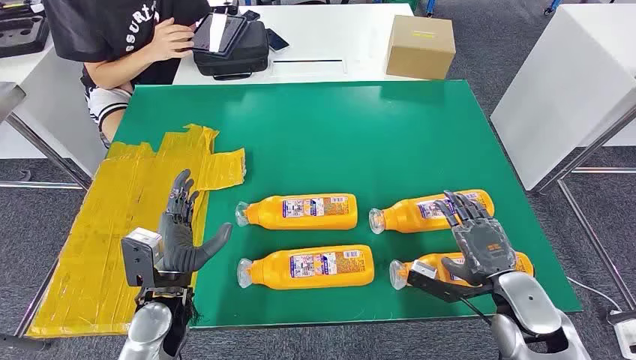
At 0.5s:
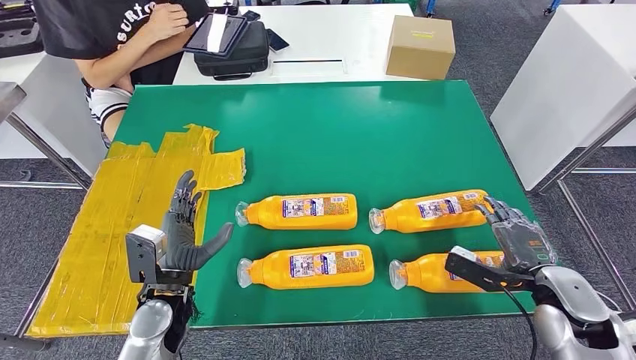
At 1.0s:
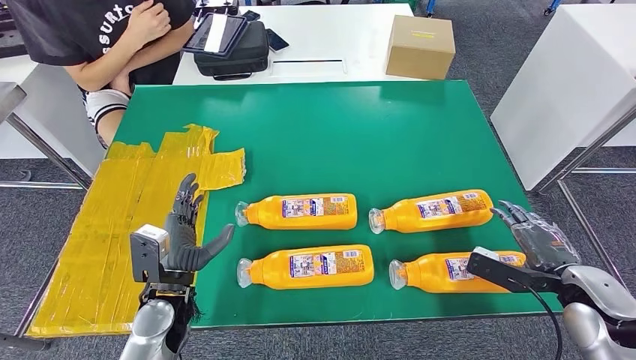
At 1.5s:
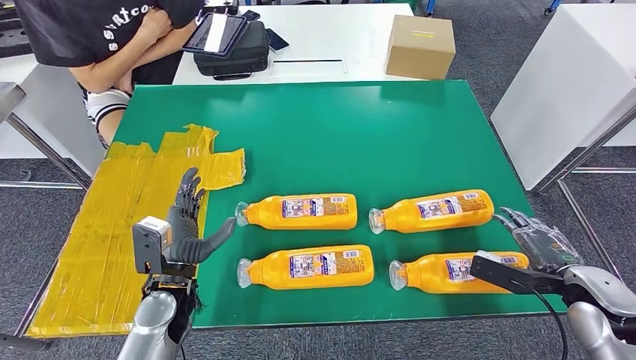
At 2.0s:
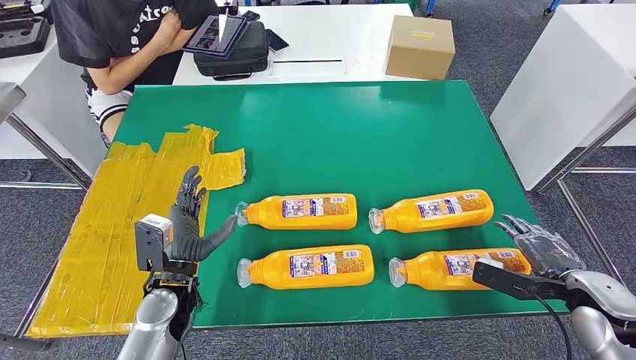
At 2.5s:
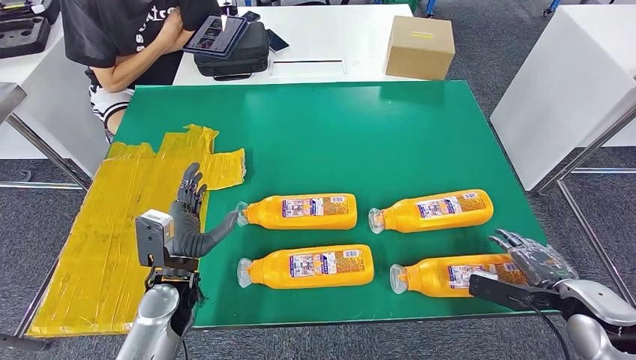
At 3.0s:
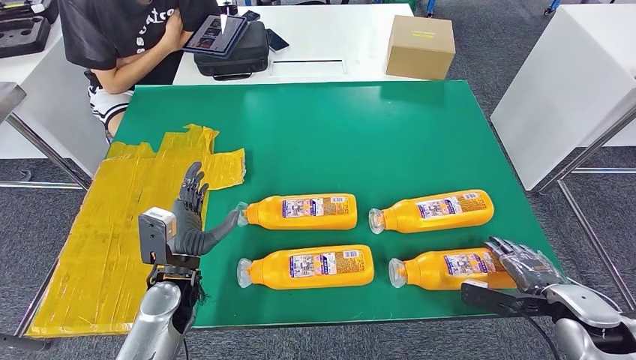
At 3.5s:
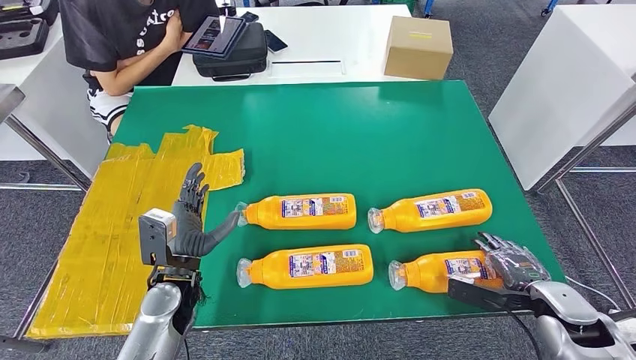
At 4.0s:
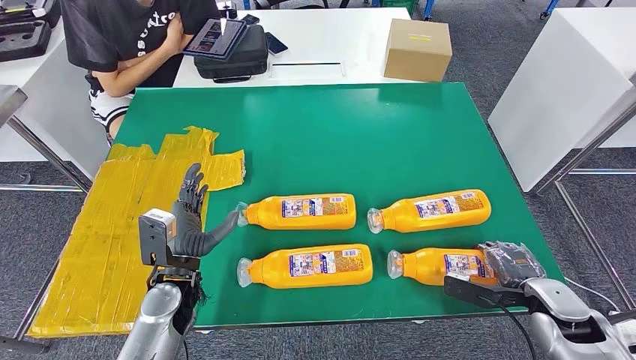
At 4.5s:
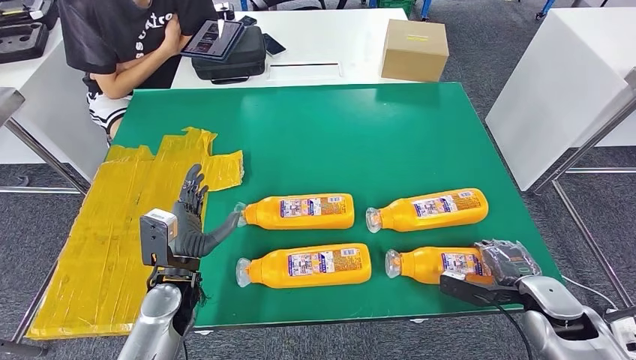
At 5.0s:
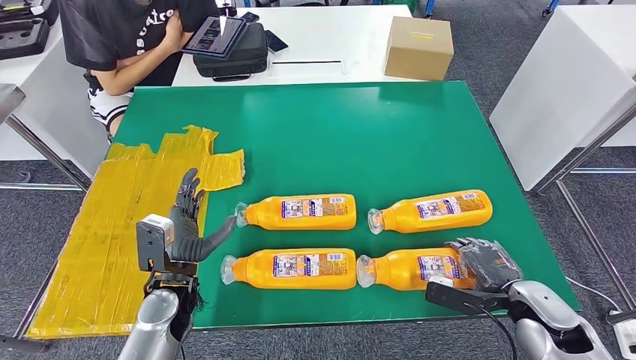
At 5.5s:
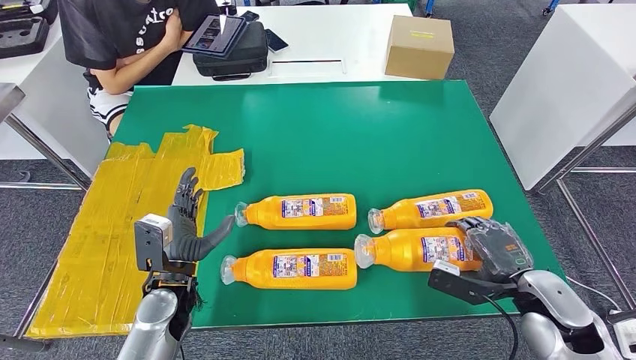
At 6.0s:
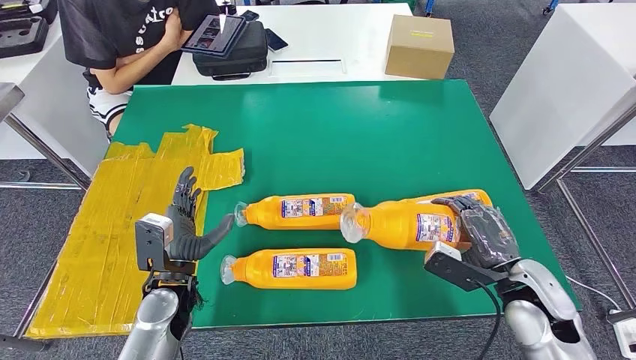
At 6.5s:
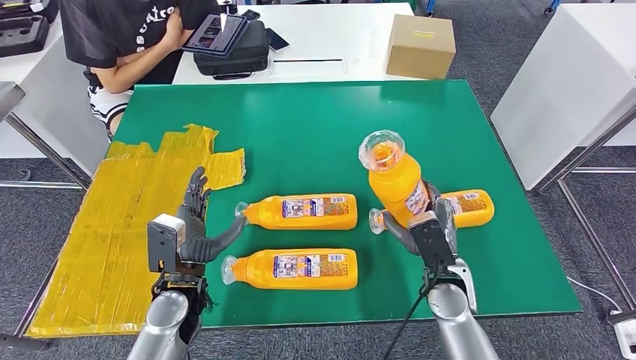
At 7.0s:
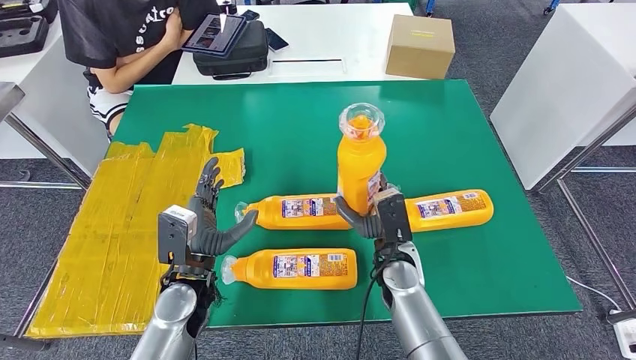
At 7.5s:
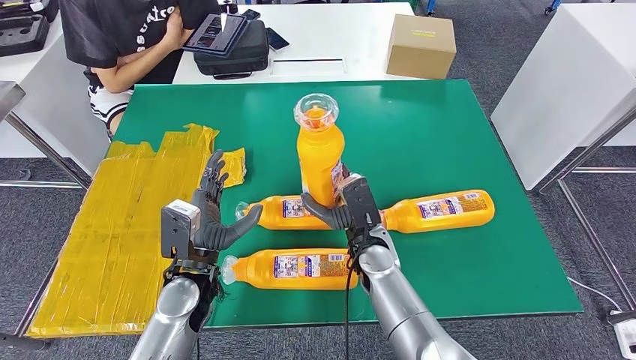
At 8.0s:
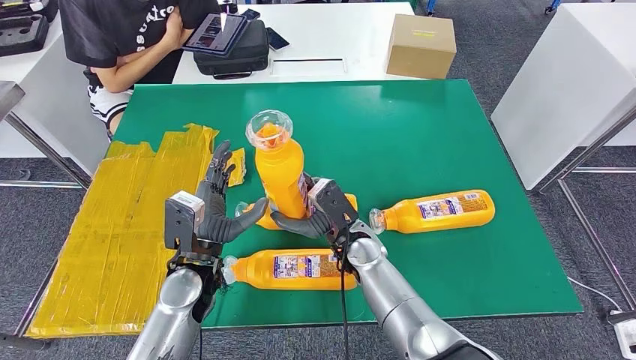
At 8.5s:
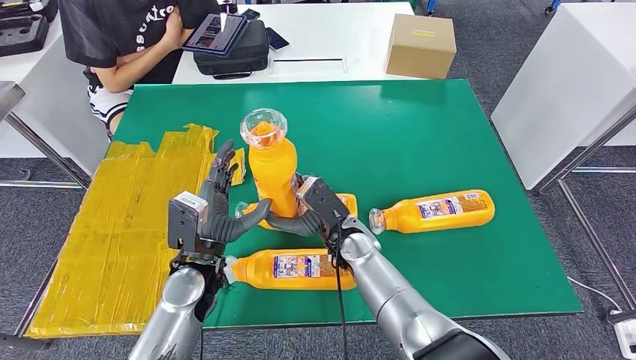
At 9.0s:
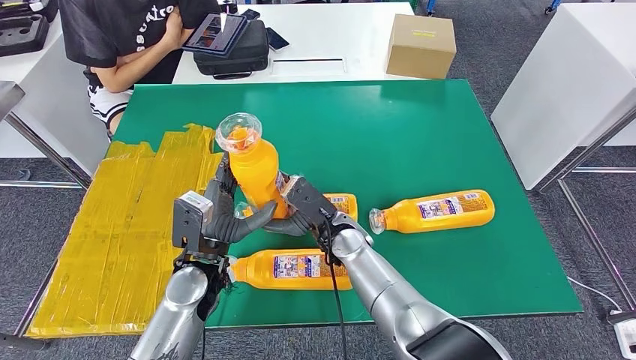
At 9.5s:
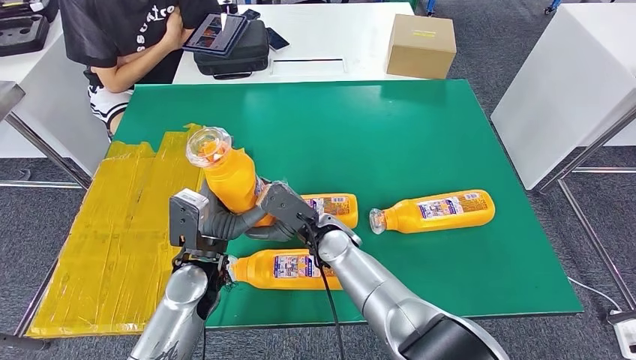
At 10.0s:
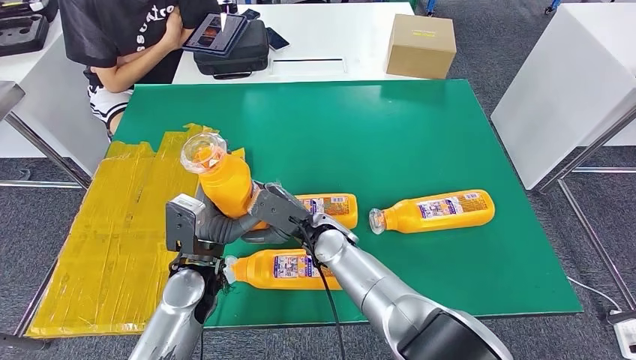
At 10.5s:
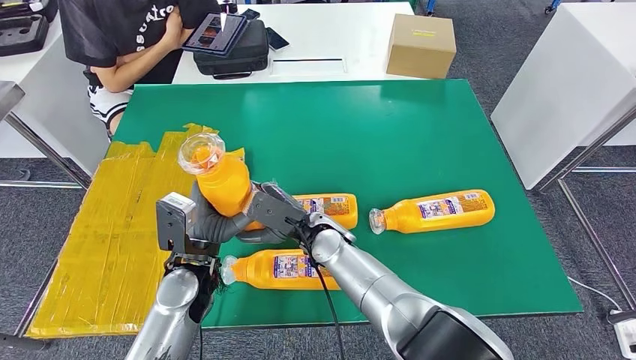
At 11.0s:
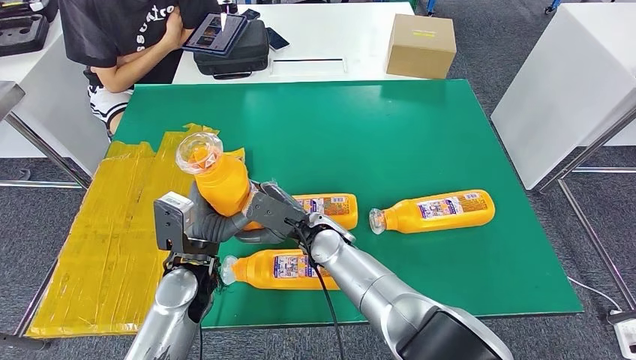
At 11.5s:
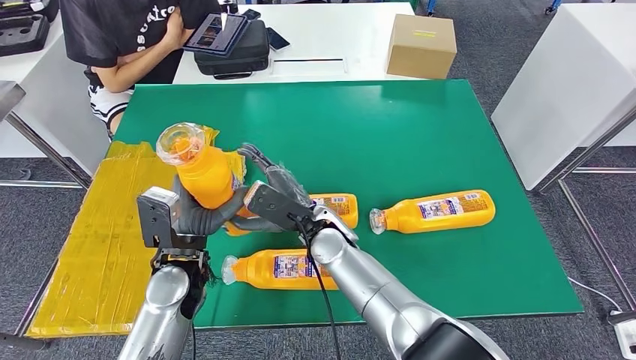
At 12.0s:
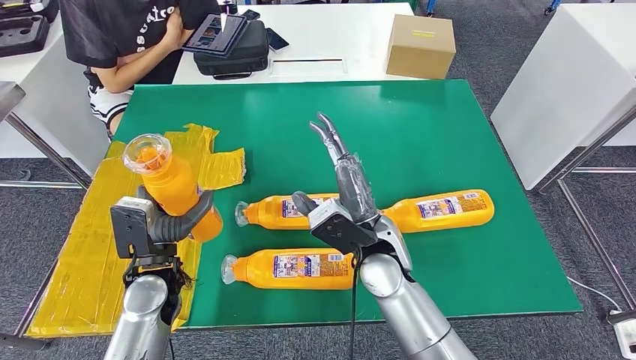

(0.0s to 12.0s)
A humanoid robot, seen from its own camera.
Step, 0.0s - 7.0s: Take the bottle from the table.
2.0s - 4.0s: The right hand moves downward, about 5 cm.
4.0s - 6.0s: The right hand moves to the left and upward, roughly 10 cm.
8.0s - 10.0s: The right hand is displaced to the left by about 5 cm.
10.0s - 12.0s: The right hand is displaced to the right and upward by about 10 cm; the left hand moves to the left, about 5 cm.

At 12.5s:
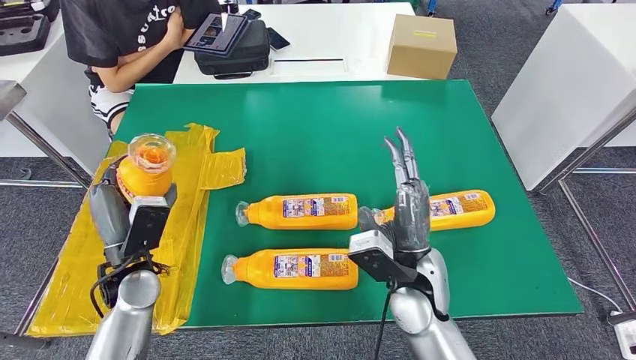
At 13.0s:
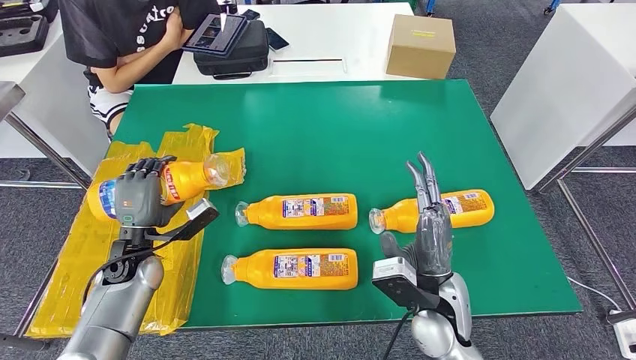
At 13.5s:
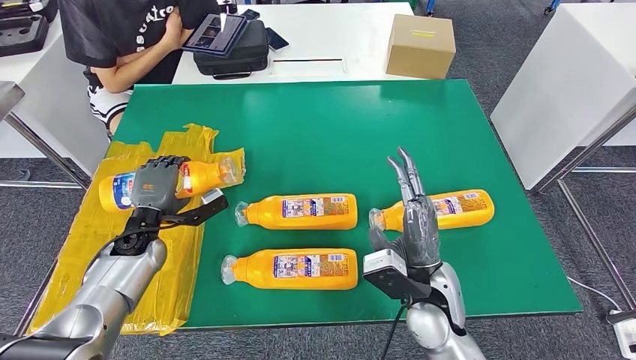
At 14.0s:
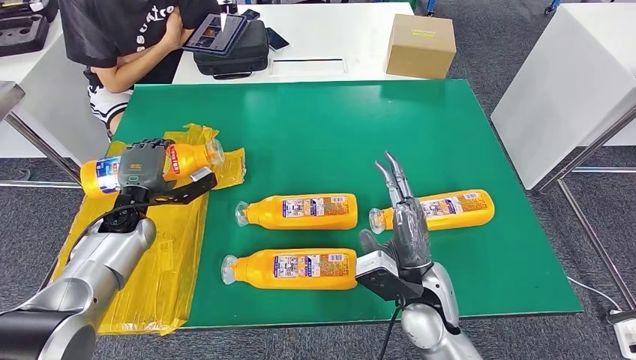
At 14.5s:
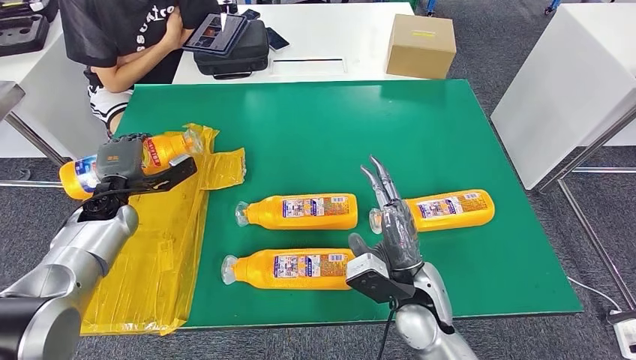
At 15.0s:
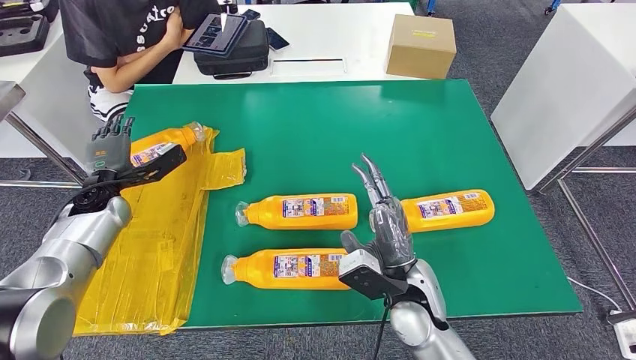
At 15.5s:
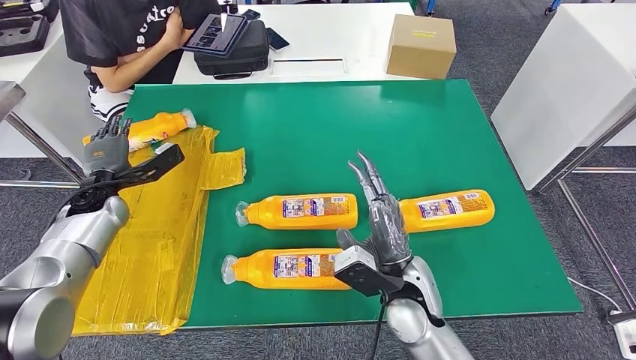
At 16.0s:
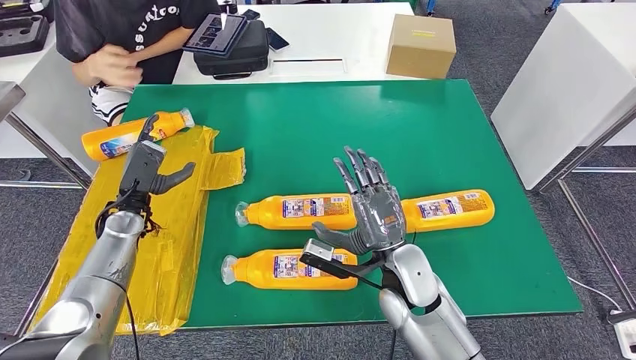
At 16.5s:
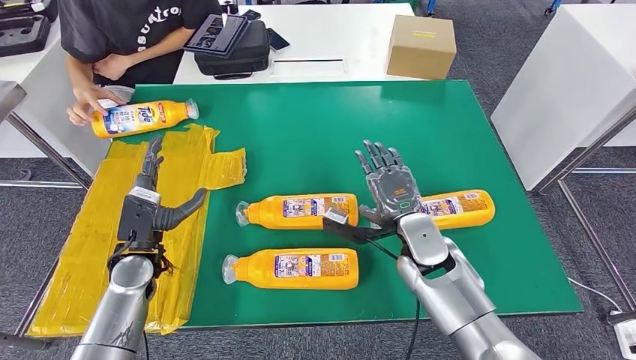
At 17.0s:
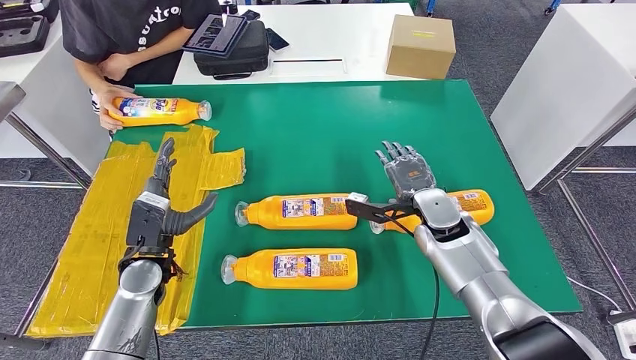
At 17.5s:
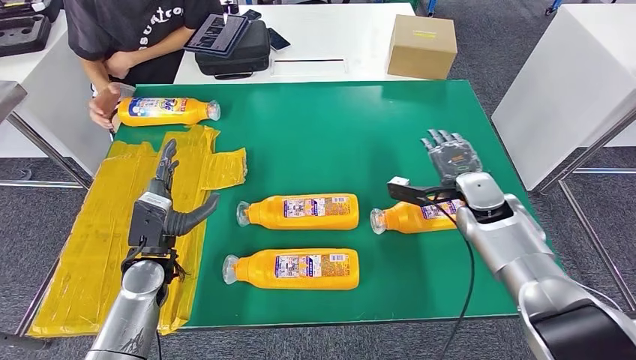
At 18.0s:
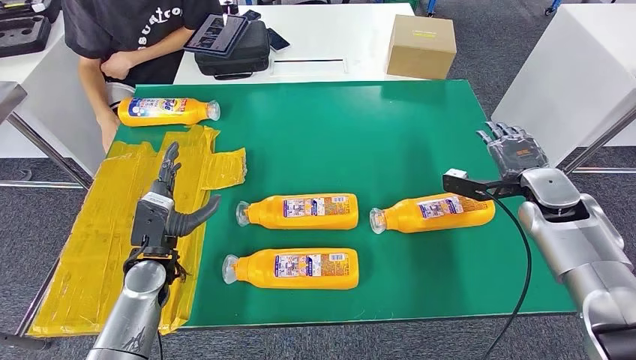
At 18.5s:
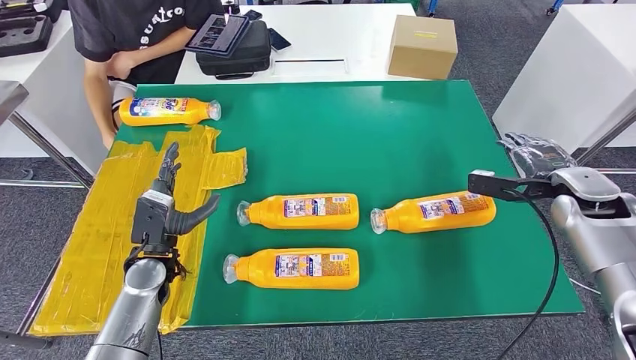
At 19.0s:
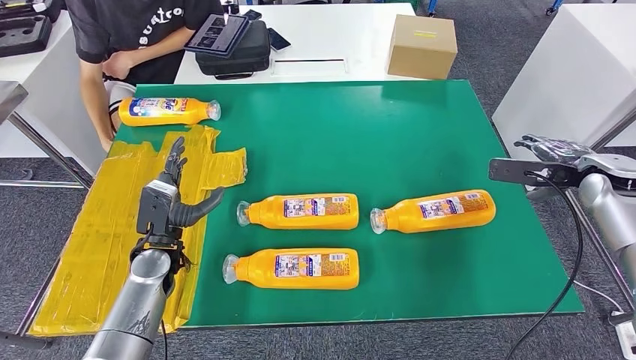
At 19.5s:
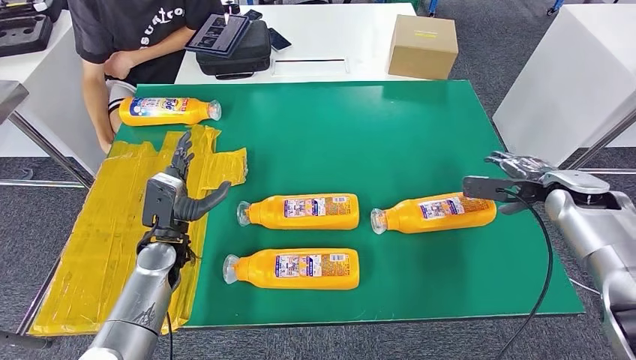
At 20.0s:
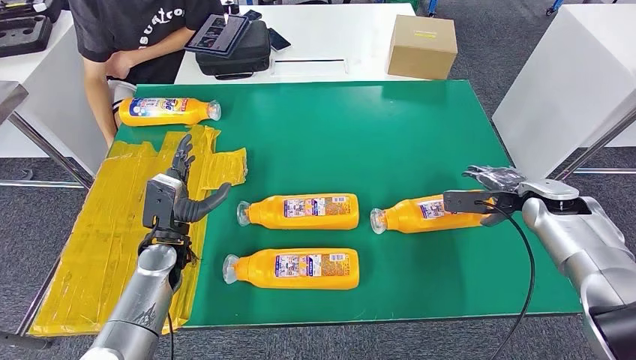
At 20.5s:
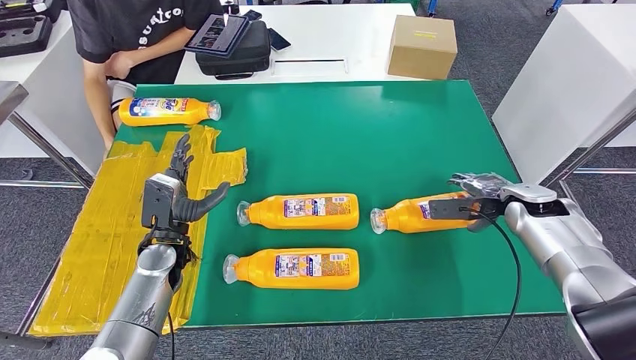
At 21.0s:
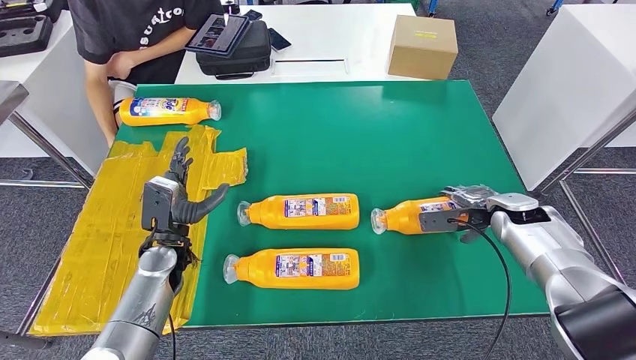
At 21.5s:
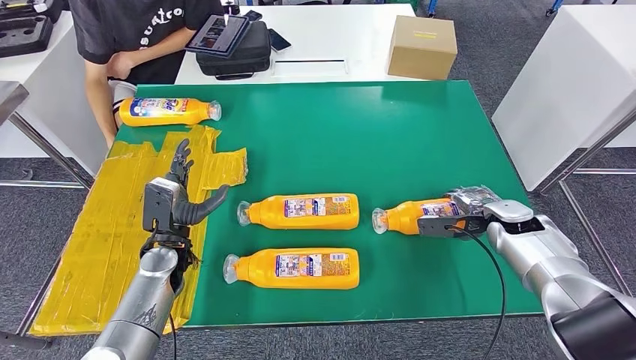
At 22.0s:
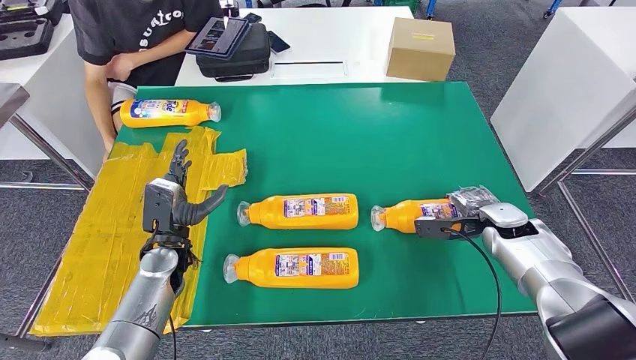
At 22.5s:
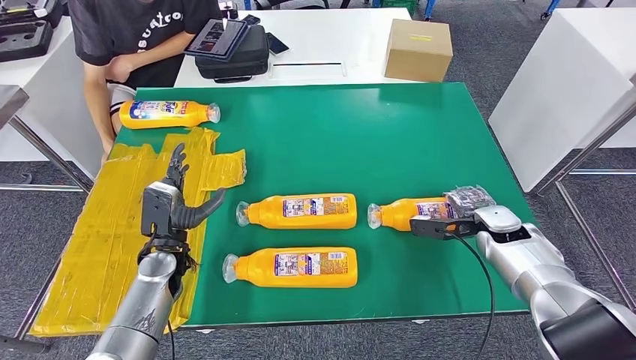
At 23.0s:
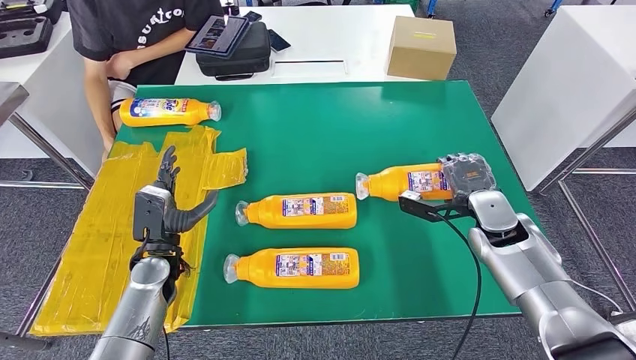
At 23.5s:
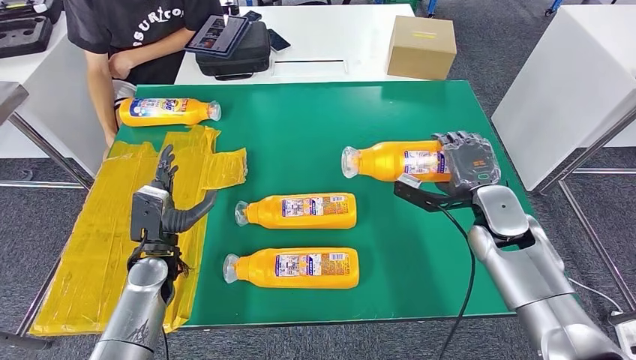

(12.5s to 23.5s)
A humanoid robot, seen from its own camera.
Step, 12.5s - 14.5s: Flip the bottle to face forward.
12.5s - 14.5s: The left hand moves forward and to the left, about 15 cm.
18.0s - 20.0s: The right hand reaches roughly 10 cm to the right, then returns.
20.0s - 21.5s: The right hand travels downward by approximately 5 cm.
21.5s - 23.5s: The right hand is displaced to the left and upward by some 10 cm.
